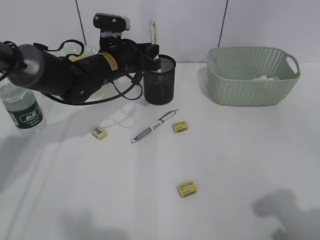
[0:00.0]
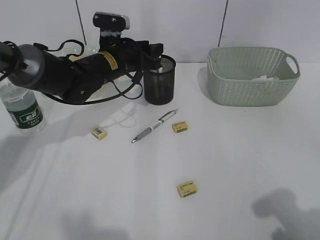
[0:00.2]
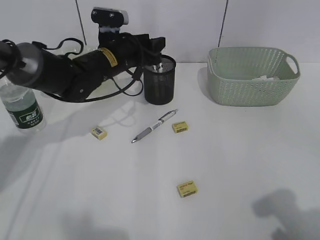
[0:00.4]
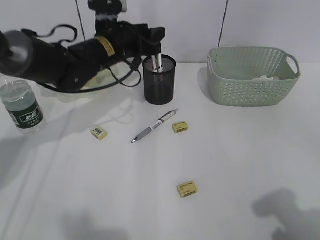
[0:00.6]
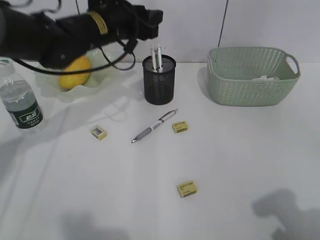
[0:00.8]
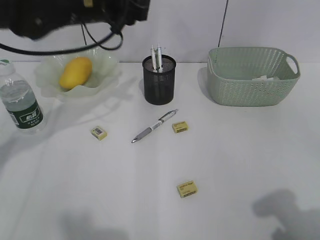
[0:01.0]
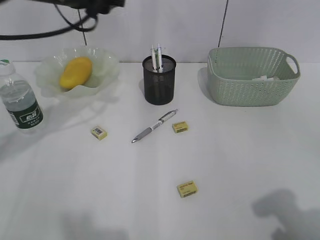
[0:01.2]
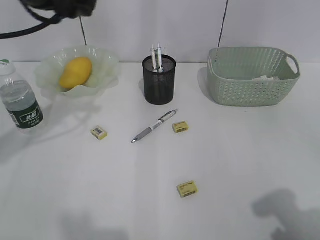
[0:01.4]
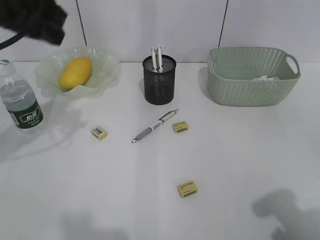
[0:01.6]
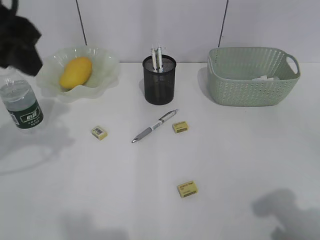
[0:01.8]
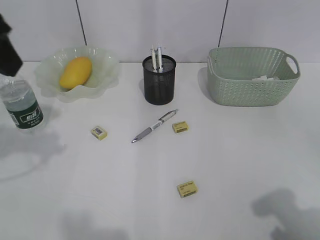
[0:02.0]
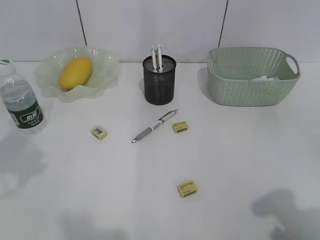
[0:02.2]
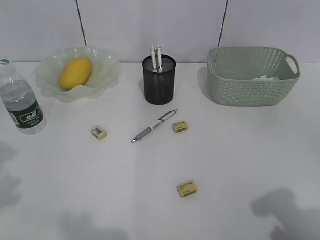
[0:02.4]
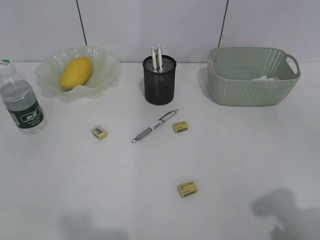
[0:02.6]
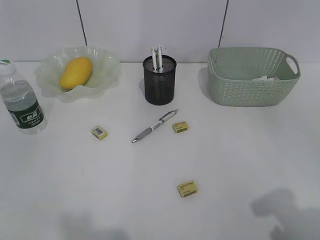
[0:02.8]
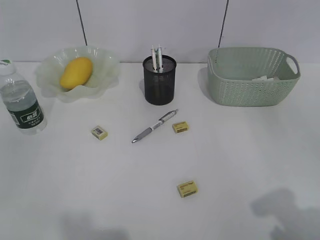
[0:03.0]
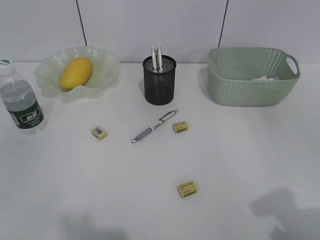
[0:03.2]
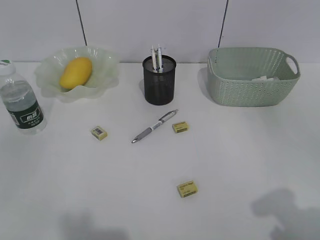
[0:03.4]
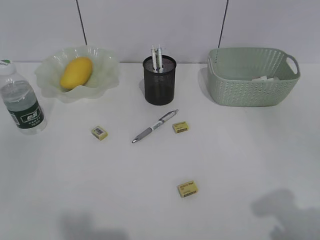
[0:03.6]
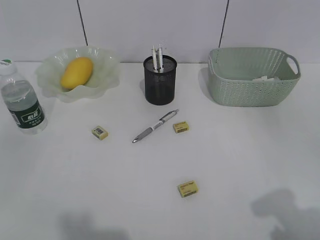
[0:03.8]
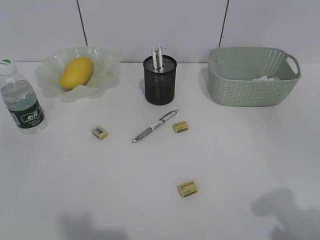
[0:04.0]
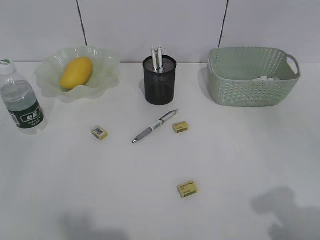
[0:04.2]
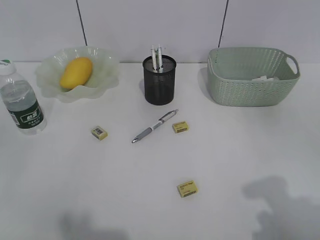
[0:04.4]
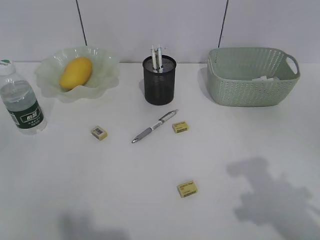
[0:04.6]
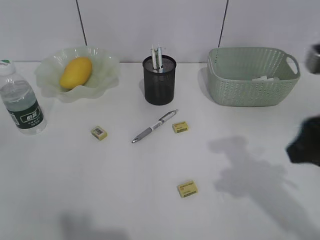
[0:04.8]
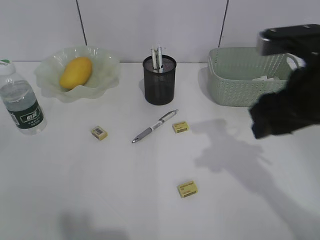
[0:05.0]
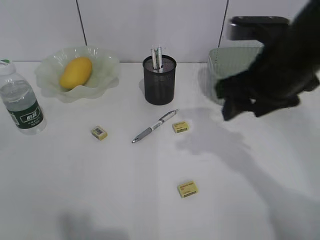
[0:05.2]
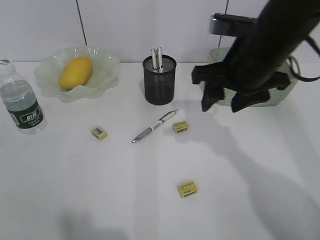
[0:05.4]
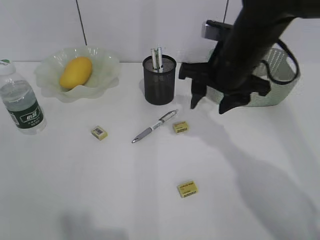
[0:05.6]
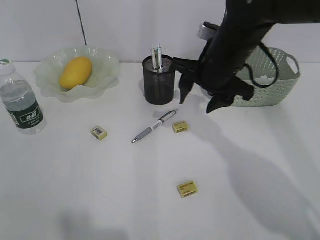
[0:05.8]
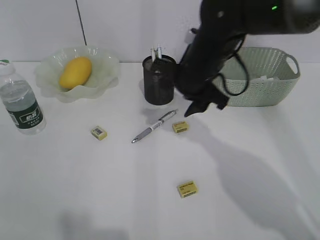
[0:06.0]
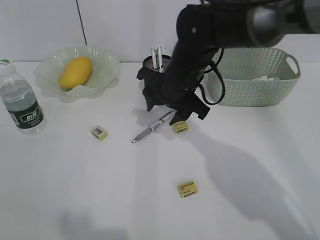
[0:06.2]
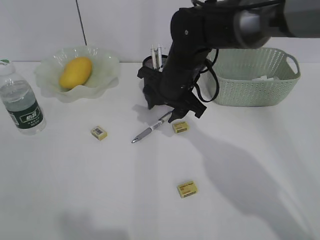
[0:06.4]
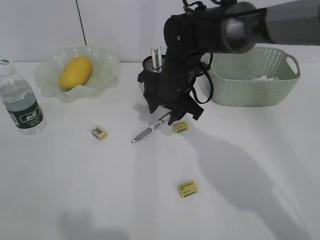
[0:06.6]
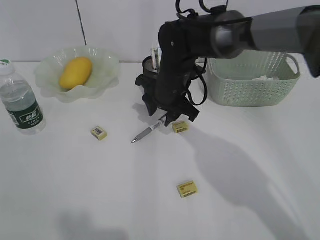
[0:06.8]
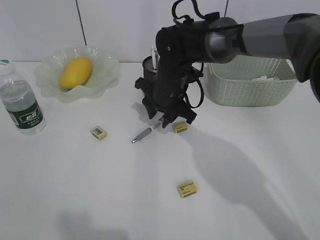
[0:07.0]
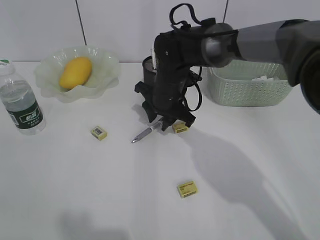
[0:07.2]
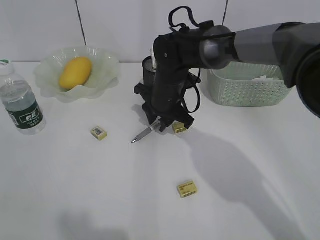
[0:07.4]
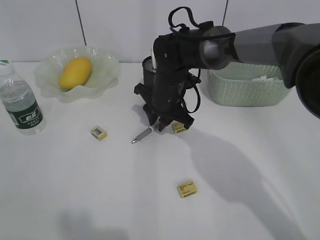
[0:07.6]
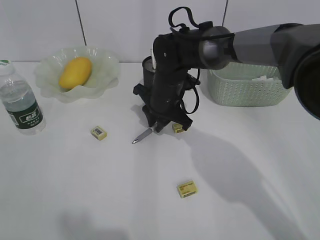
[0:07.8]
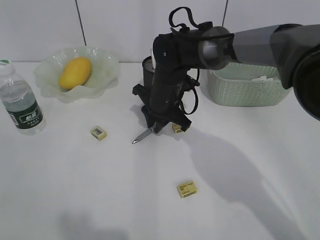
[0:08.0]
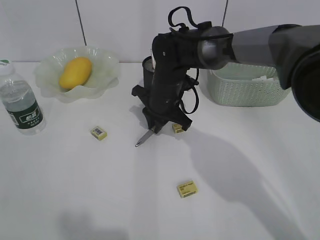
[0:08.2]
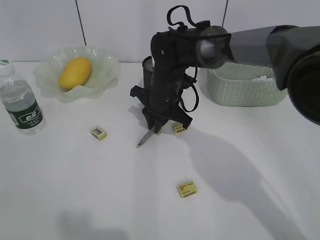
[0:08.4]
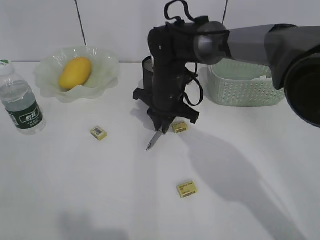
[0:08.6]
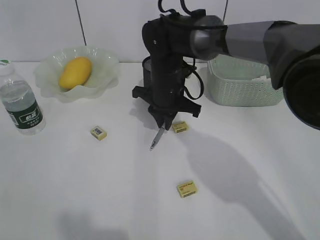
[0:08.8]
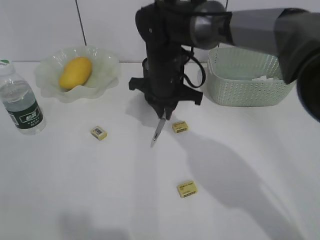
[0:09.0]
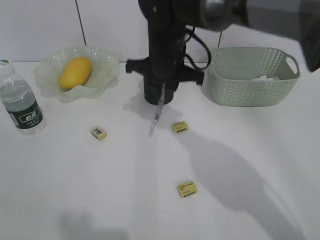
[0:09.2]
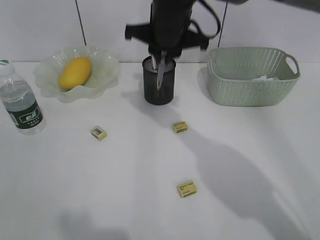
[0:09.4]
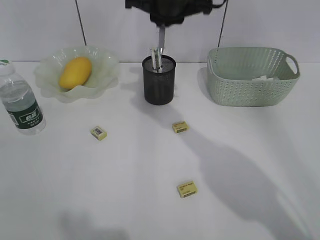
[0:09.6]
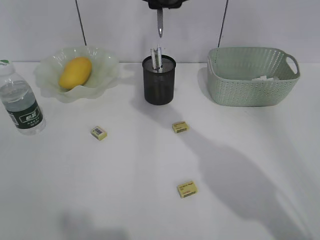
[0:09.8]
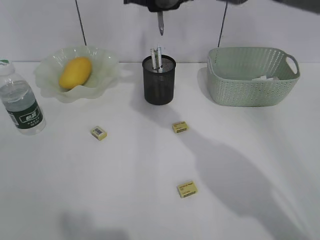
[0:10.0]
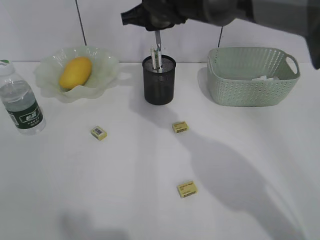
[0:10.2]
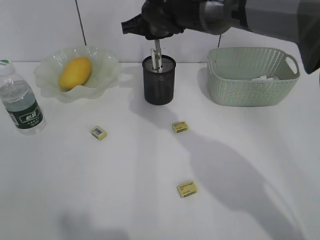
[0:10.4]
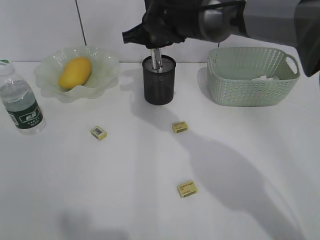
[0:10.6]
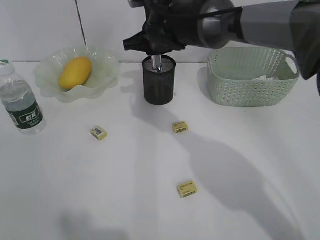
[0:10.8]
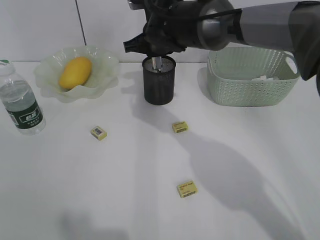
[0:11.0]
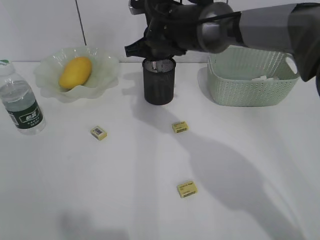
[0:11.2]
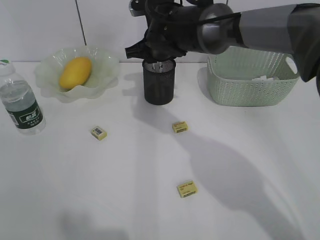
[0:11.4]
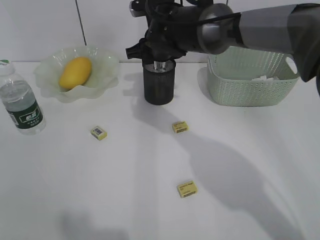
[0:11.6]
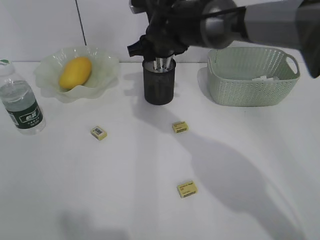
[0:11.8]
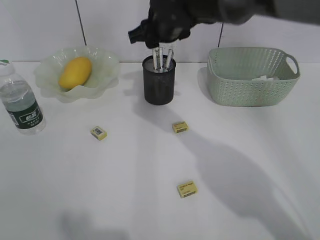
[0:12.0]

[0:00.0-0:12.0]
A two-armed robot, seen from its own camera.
Step, 0:00.4 to 0:08.2: Grasp the gray pen with right gripper.
Step, 0:08.4 to 0:11.6: Place the gray pen in pen holder with right gripper.
0:00.0 to 0:01.6: The left gripper heads upward, backward and to the left, covering some 25 cm, and opens its fingers.
0:01.6 to 0:03.0: The left gripper is displaced backward and to the left by some 30 cm.
0:04.4 to 0:06.0: The right gripper goes approximately 35 cm forward and to the left.
0:06.0 to 0:07.6: The right gripper shifts roughly 10 cm downward, and closes its fingers.
0:07.6 to 0:09.0: The right gripper ends up approximately 5 cm from where it was.
0:09.0 to 0:10.4: The right gripper travels upward and forward by about 10 cm.
0:10.4 to 0:12.0: The right gripper opens.

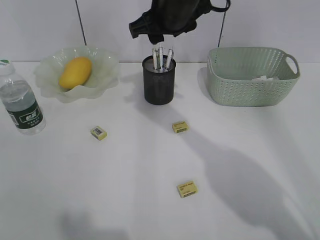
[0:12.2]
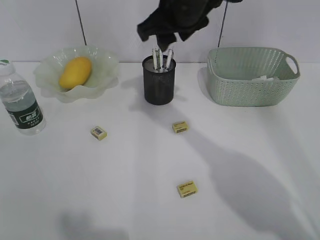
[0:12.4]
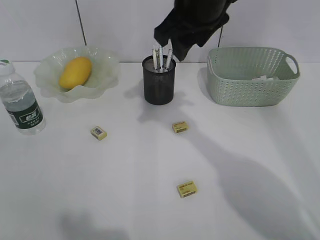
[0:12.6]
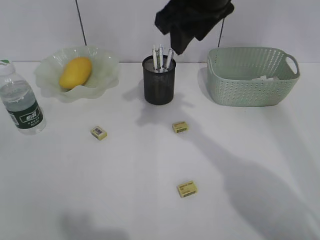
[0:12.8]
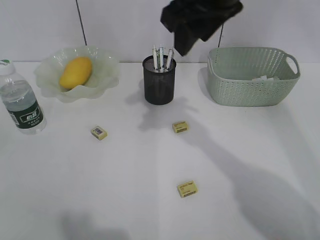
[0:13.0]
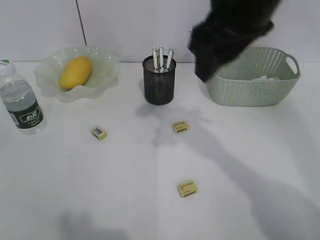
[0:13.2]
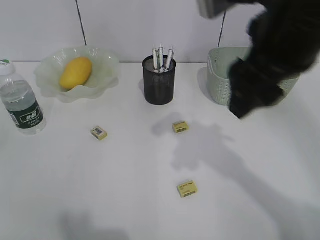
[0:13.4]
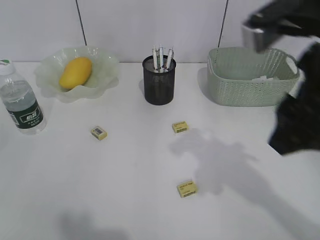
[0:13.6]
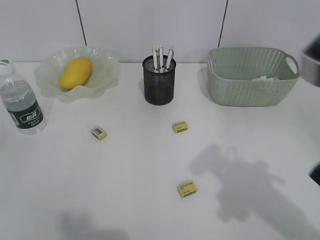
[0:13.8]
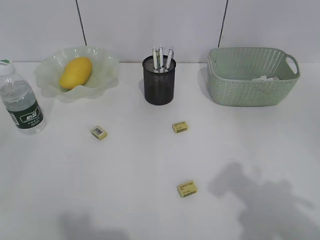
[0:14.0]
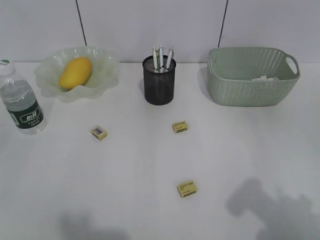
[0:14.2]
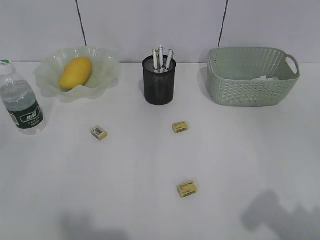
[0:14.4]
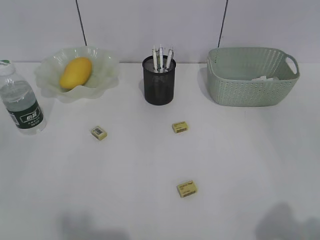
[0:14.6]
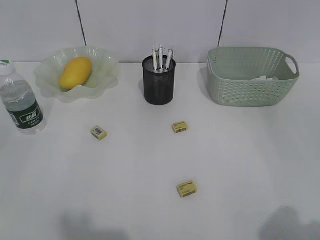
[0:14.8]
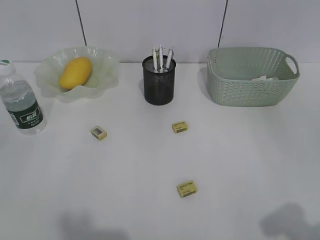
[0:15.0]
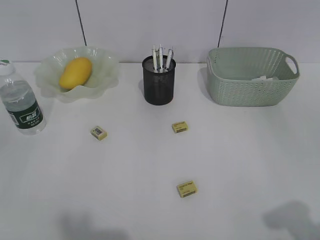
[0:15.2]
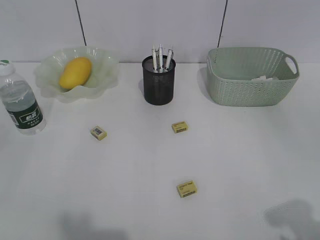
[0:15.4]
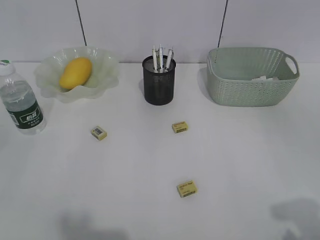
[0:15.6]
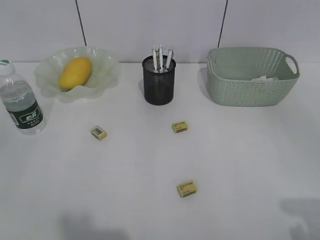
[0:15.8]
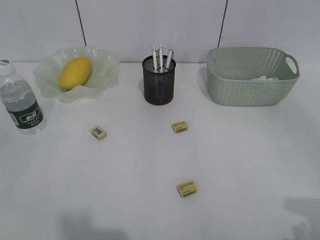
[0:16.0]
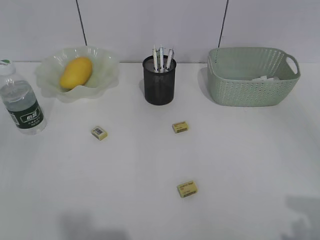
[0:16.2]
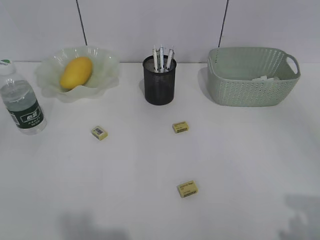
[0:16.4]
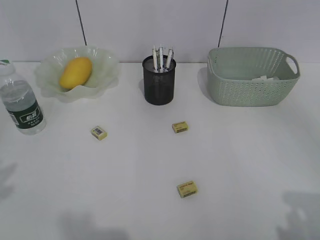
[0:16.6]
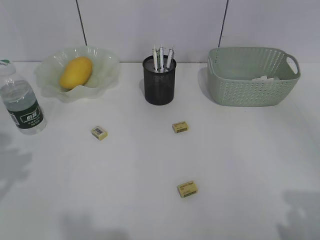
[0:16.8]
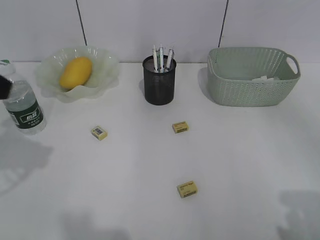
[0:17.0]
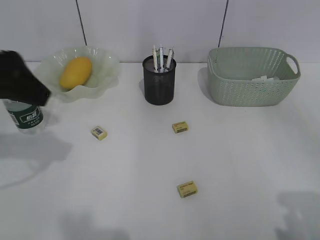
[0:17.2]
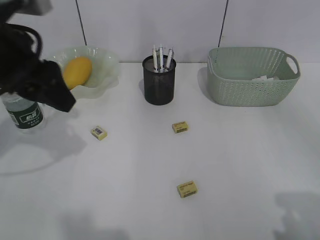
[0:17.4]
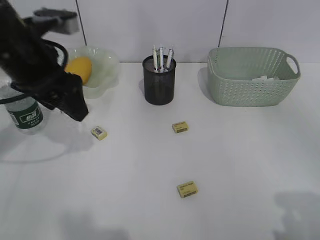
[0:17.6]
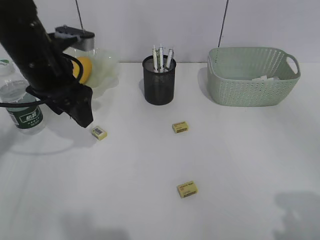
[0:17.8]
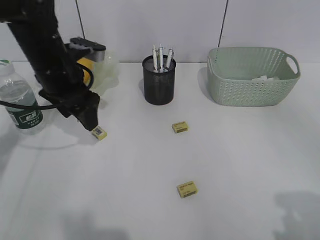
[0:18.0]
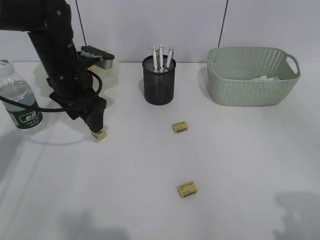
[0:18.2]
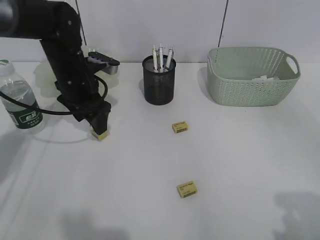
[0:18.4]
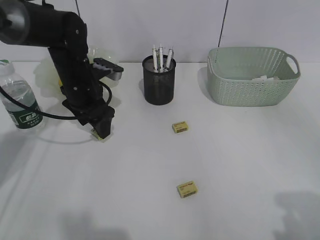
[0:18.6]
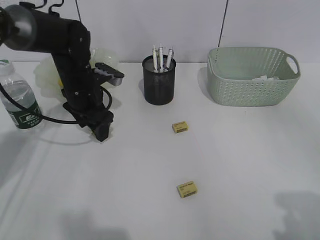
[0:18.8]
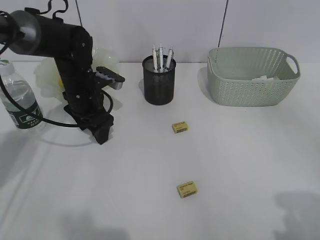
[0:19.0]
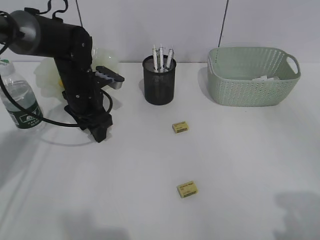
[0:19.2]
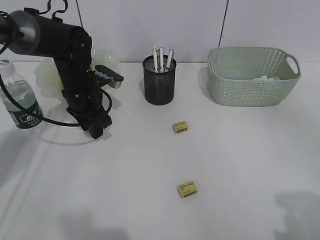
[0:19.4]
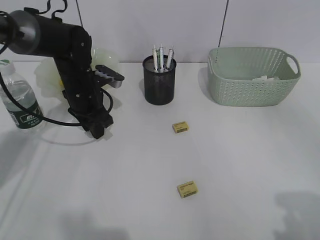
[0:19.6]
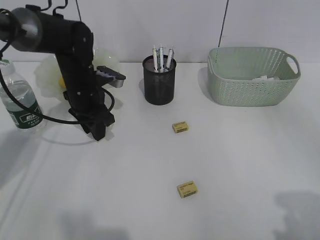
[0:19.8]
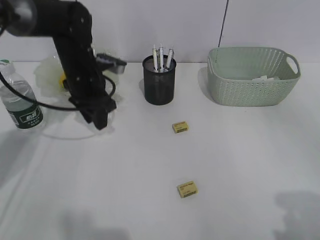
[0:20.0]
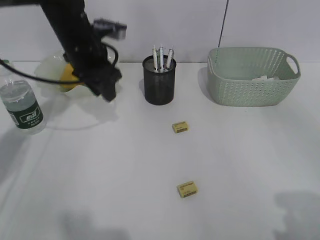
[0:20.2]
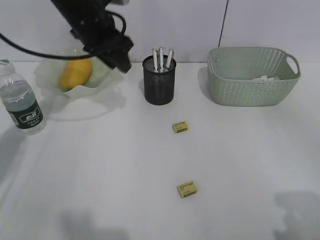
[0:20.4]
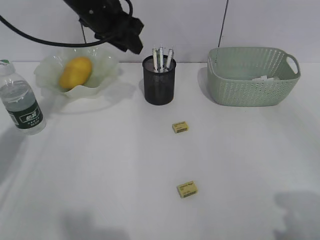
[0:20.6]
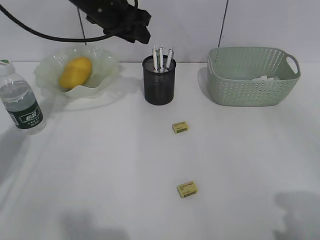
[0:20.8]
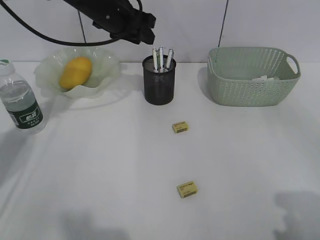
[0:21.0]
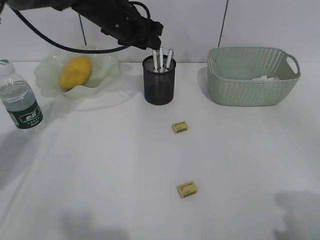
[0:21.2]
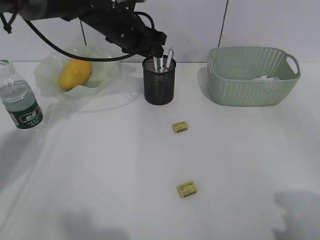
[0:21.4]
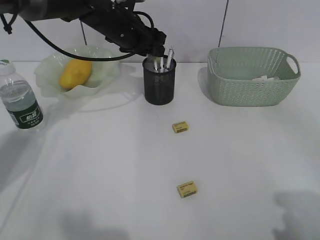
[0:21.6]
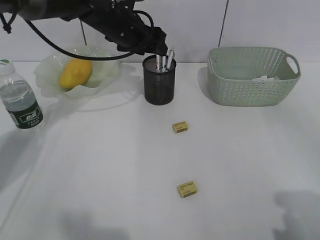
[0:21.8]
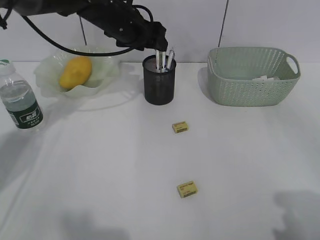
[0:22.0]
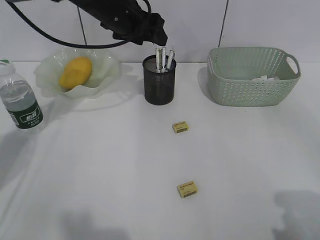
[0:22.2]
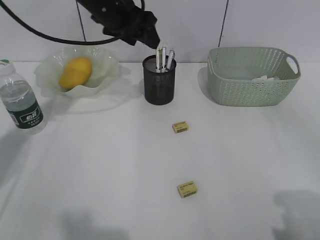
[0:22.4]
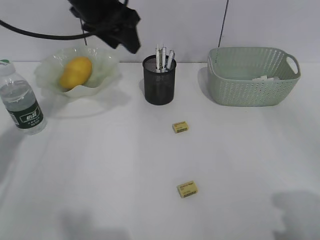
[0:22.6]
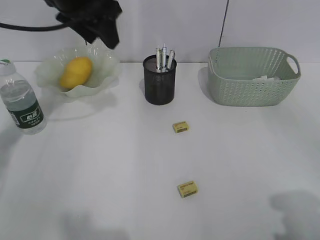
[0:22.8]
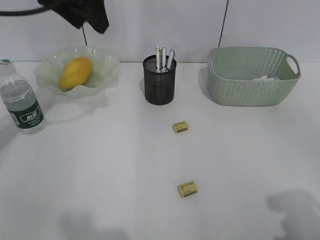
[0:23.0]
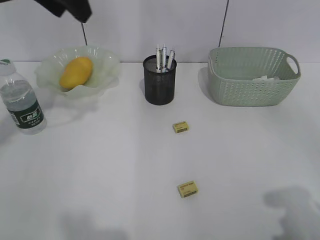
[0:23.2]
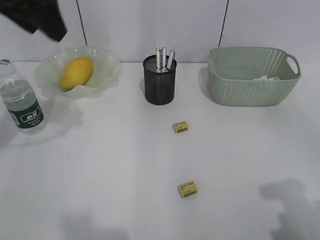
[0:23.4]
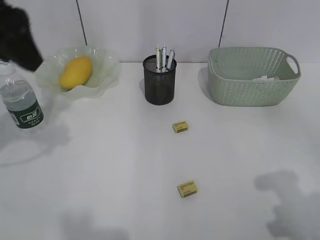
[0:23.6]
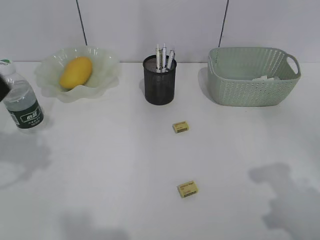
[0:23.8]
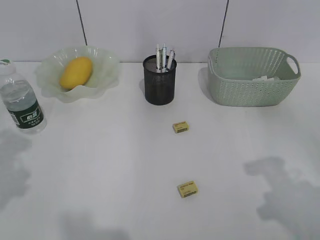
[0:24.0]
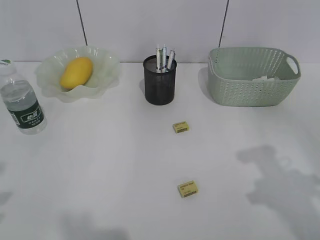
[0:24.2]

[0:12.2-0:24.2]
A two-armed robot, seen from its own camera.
Step, 0:12.2 to 0:19.4: Grasp the eraser with left gripper.
Step, 0:19.6 to 0:21.8: Place the eraser in pen holder with left gripper.
0:12.2 to 0:13.8: The right gripper shifts about 30 cm backward and to the right.
0:13.8 to 0:15.2: The right gripper shifts roughly 15 cm backward and to the right.
0:16.6 to 0:18.2: The left gripper moves forward, downward and to the right, some 35 cm, and opens up.
0:18.2 to 0:19.8: The left gripper is displaced downward by roughly 5 cm, and closes its fingers.
0:19.8 to 0:21.2: The left gripper goes some 15 cm upward, to the right and forward.
0:21.2 to 0:22.6: The left gripper goes some 10 cm upward and backward.
0:22.6 to 0:24.2: The right gripper heads forward, covering approximately 10 cm. The left gripper goes some 35 cm backward and to the left.
